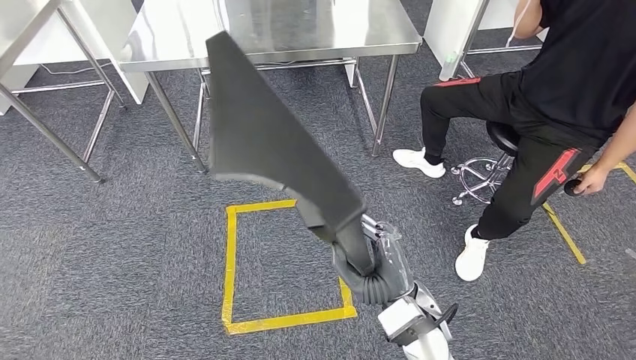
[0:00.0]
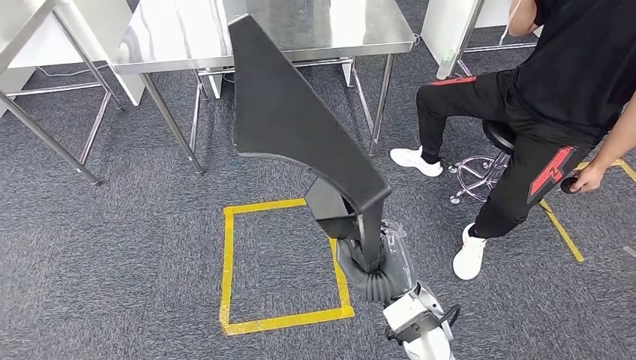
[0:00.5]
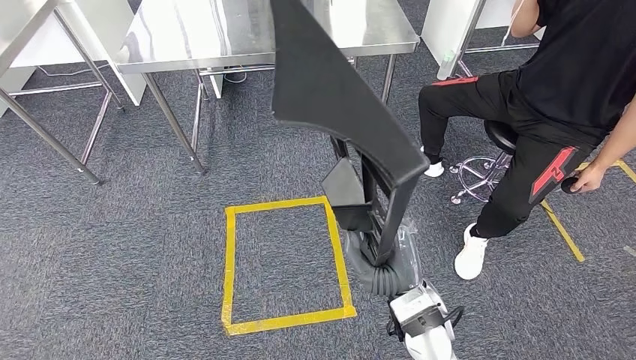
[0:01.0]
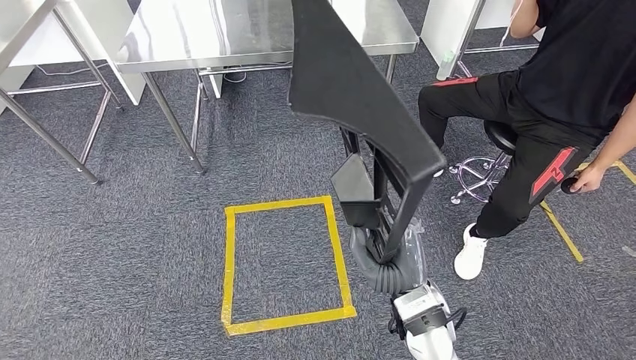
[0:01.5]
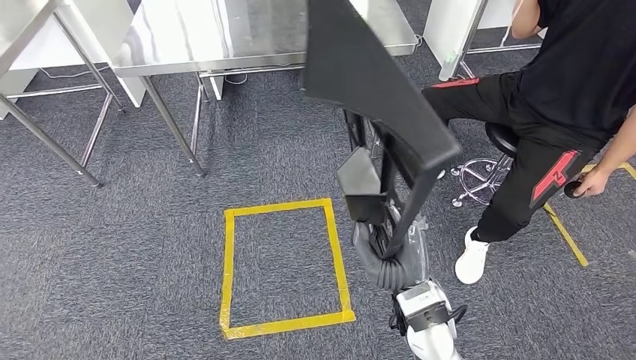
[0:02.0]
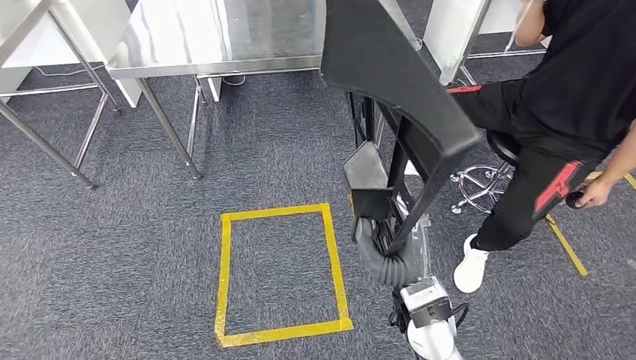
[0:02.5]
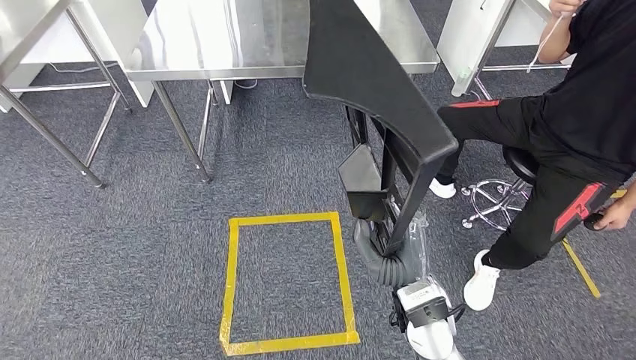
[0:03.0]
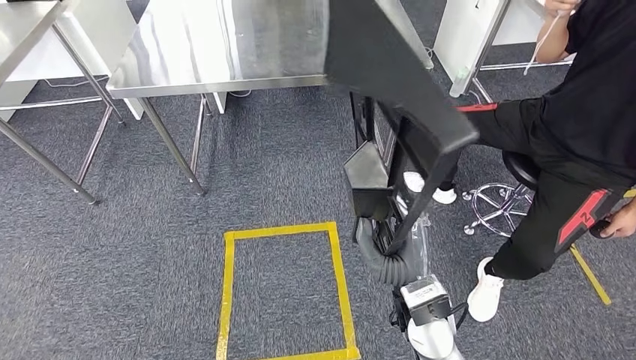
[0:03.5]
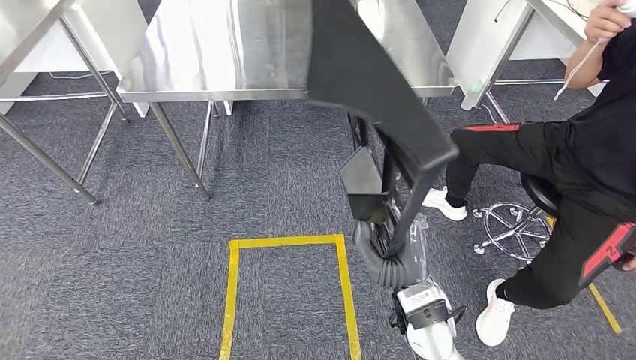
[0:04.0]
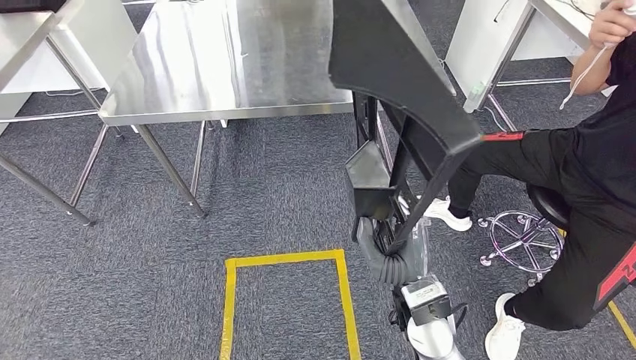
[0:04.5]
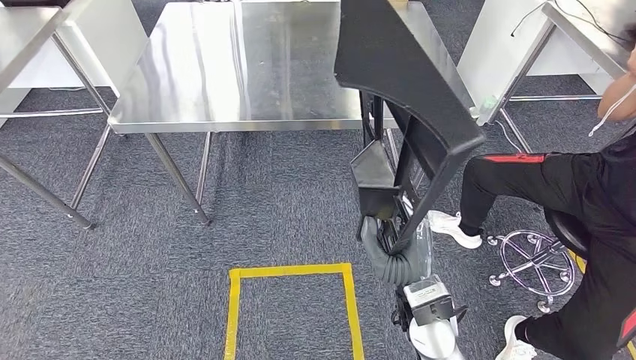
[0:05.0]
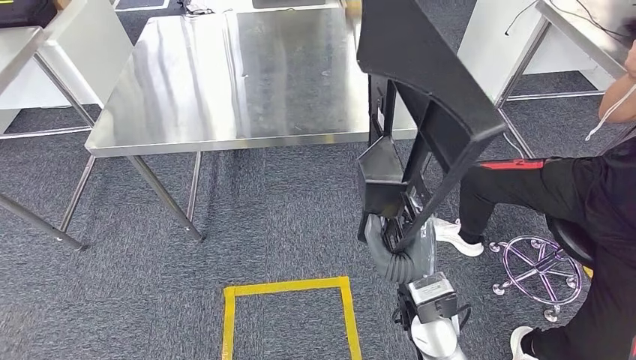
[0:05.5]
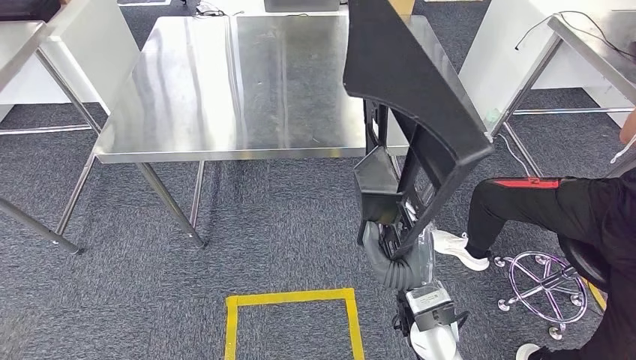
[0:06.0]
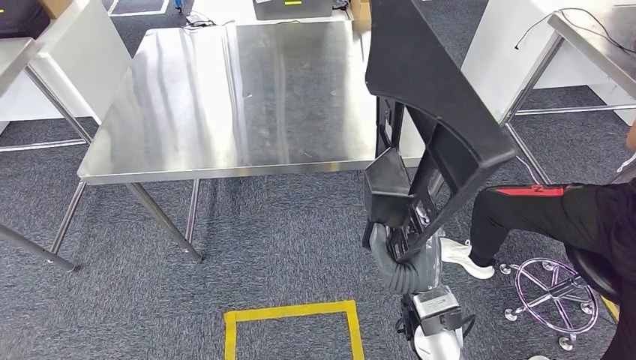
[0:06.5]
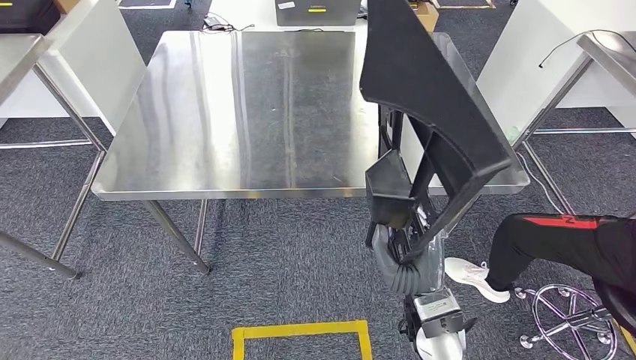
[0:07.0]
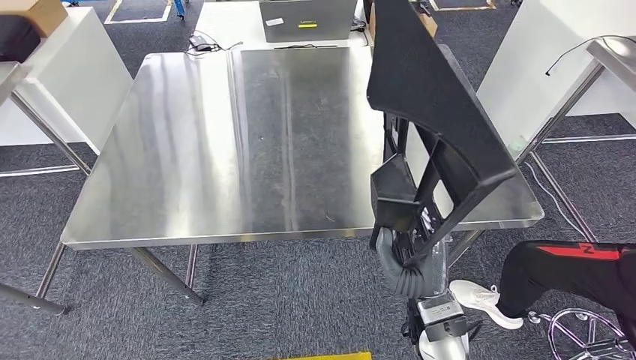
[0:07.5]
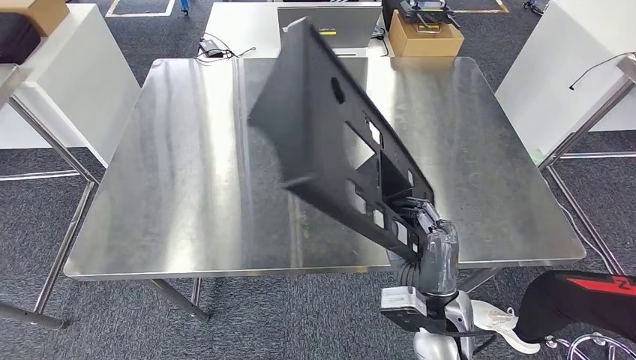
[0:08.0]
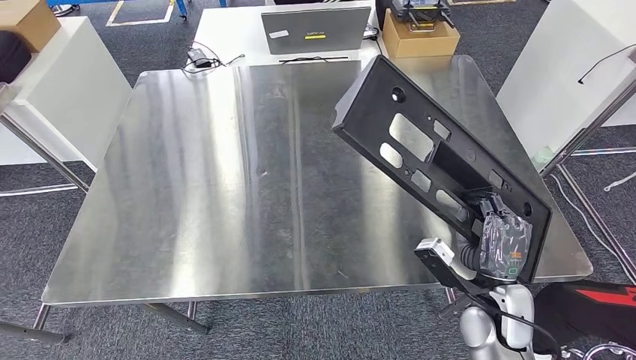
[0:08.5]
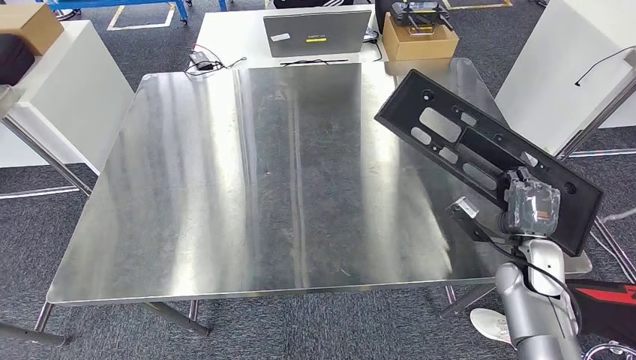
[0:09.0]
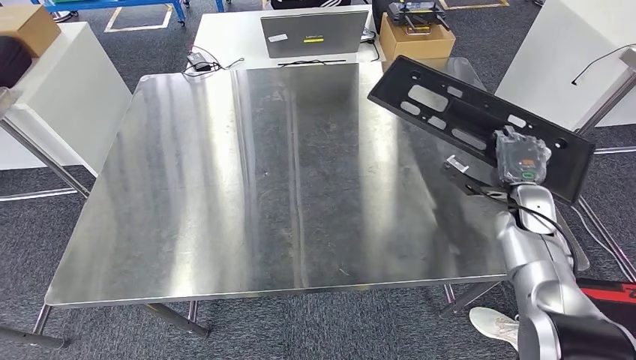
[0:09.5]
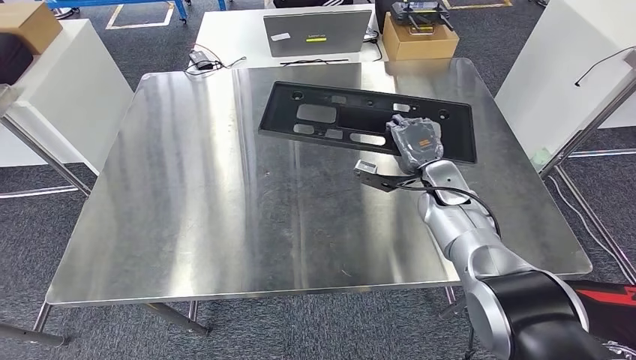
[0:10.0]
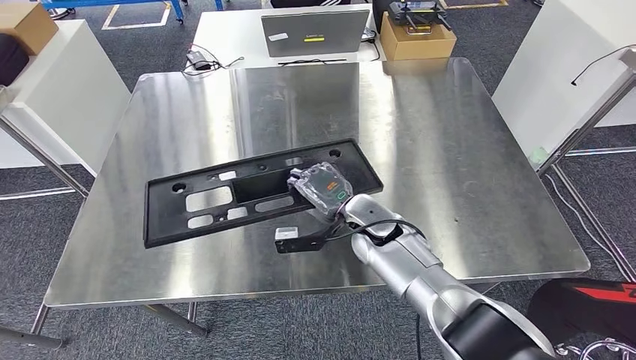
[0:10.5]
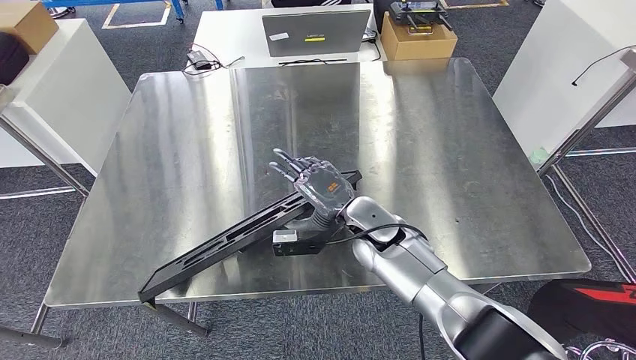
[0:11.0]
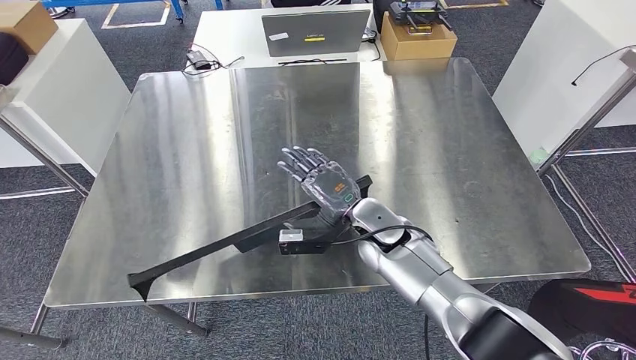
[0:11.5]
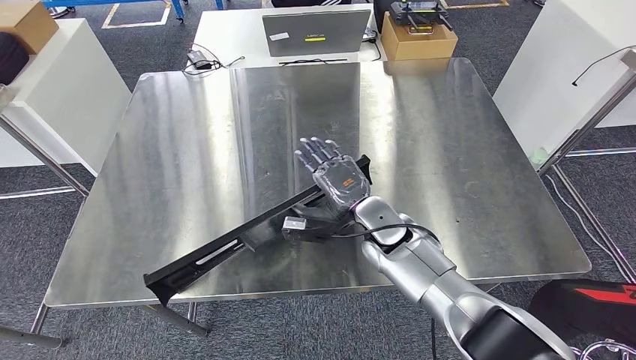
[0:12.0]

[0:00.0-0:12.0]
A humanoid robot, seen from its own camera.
Step, 0:00.0 to 0:05.0: Move the large material to the workbench.

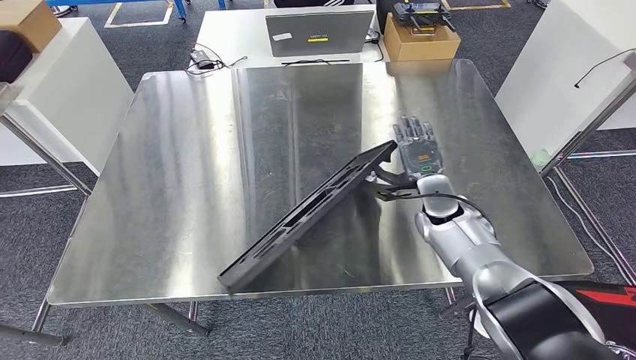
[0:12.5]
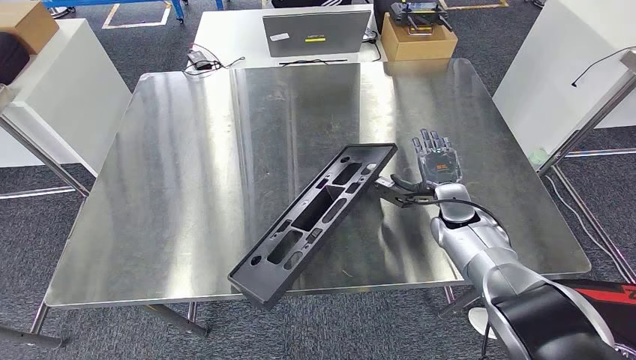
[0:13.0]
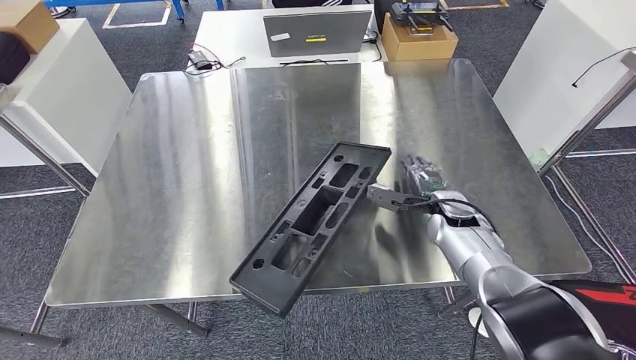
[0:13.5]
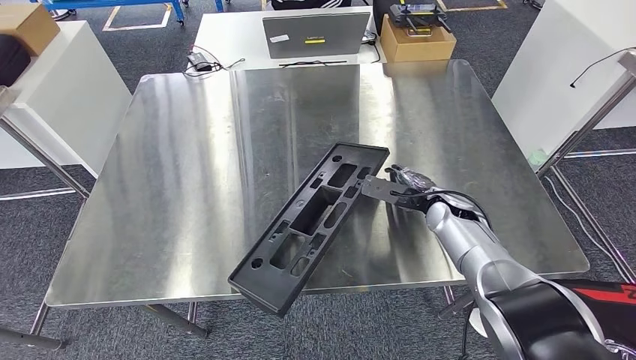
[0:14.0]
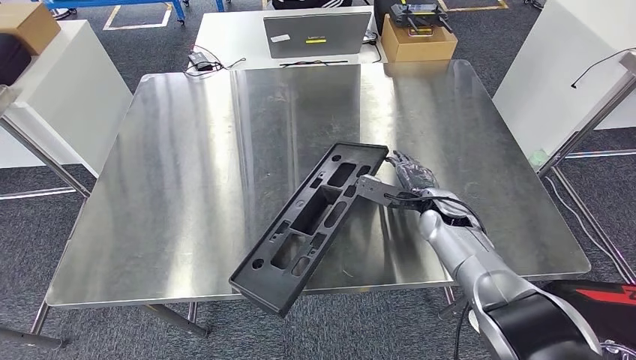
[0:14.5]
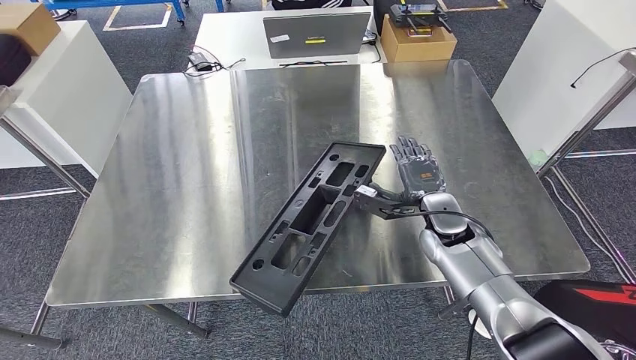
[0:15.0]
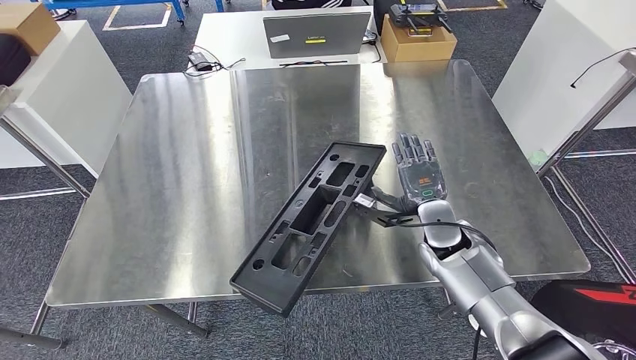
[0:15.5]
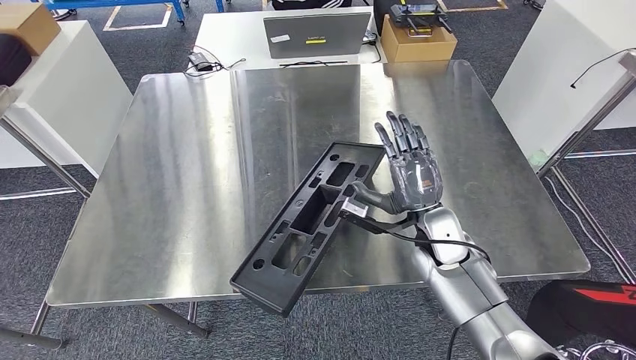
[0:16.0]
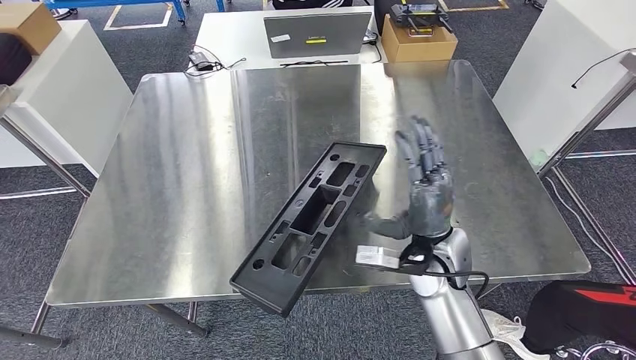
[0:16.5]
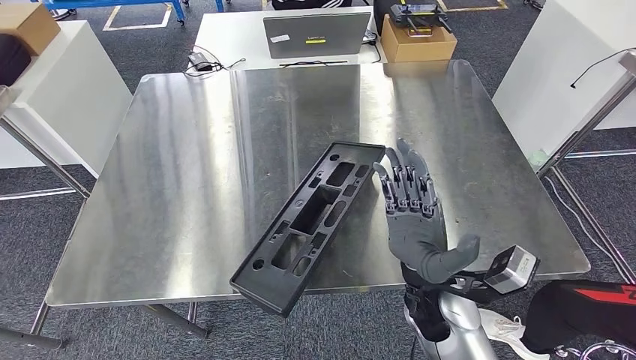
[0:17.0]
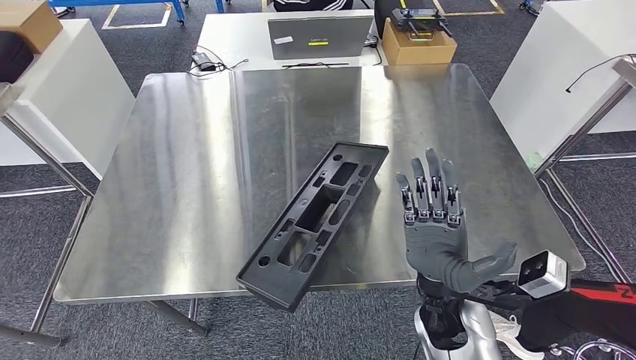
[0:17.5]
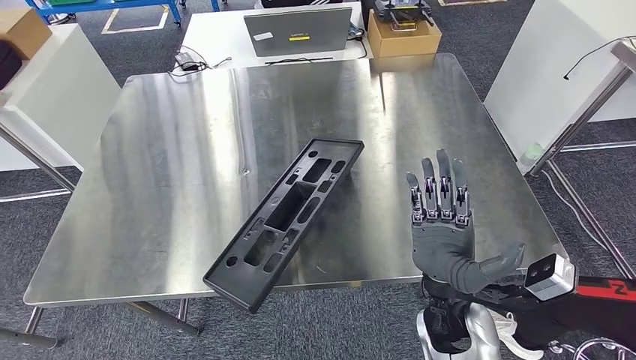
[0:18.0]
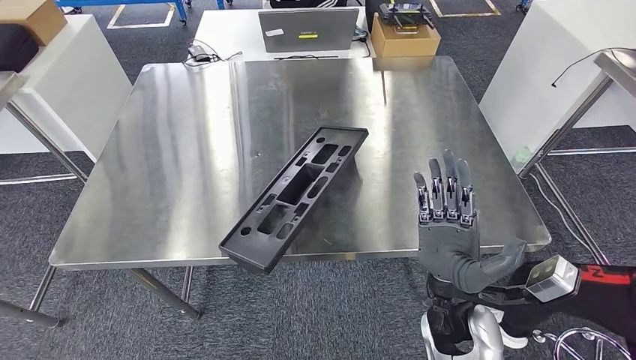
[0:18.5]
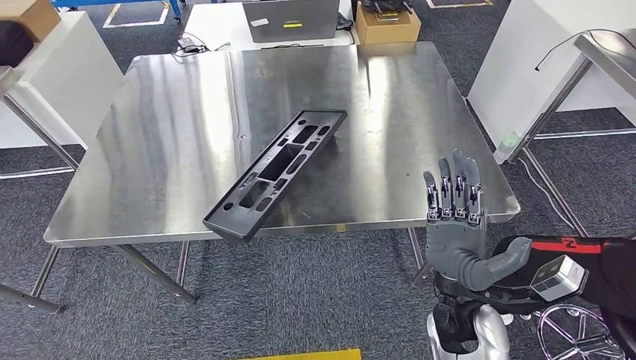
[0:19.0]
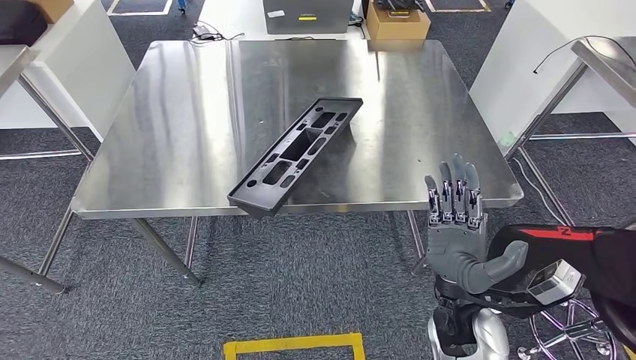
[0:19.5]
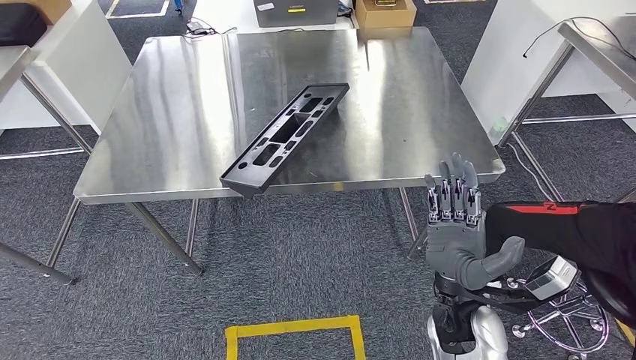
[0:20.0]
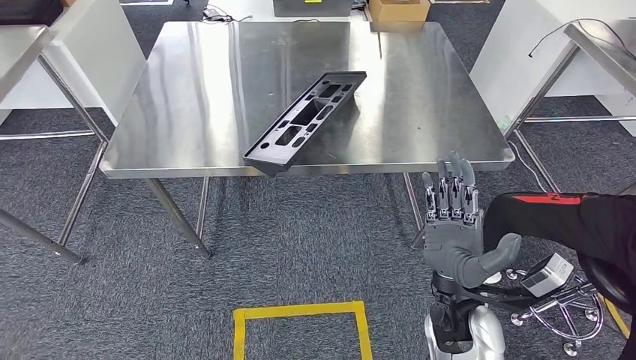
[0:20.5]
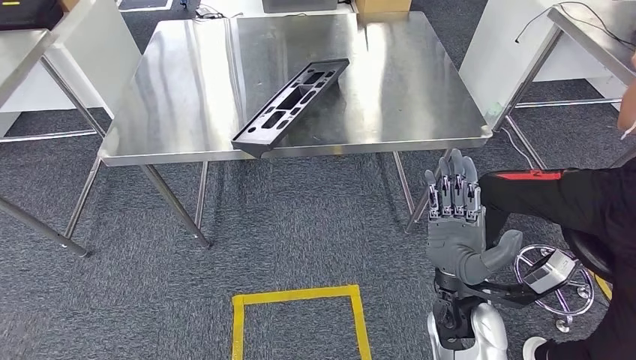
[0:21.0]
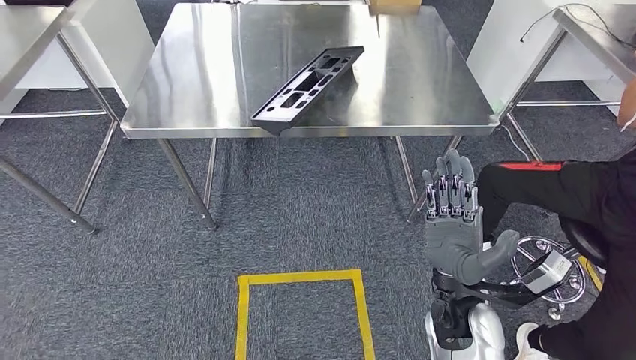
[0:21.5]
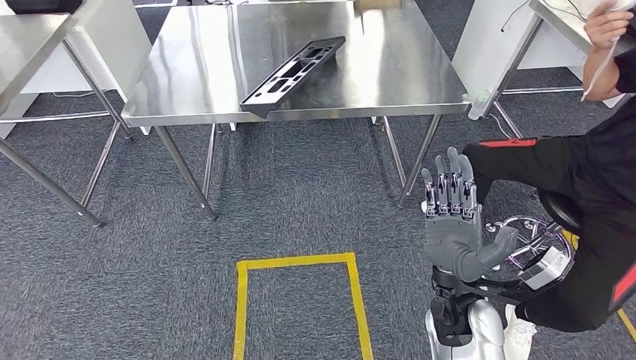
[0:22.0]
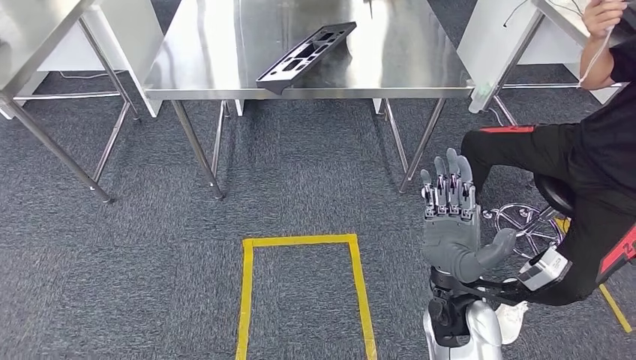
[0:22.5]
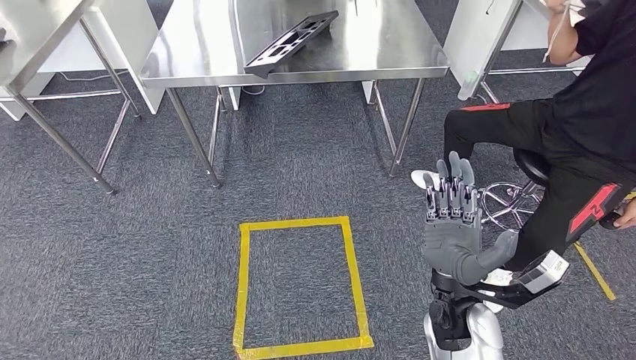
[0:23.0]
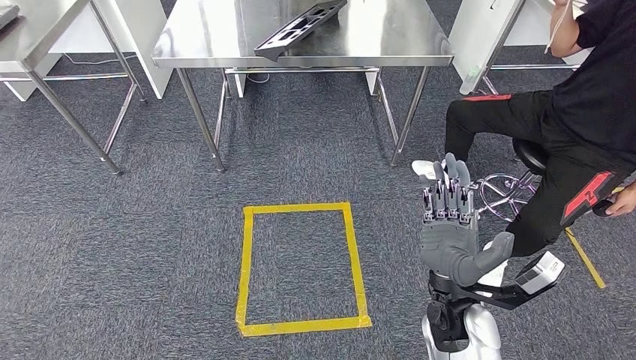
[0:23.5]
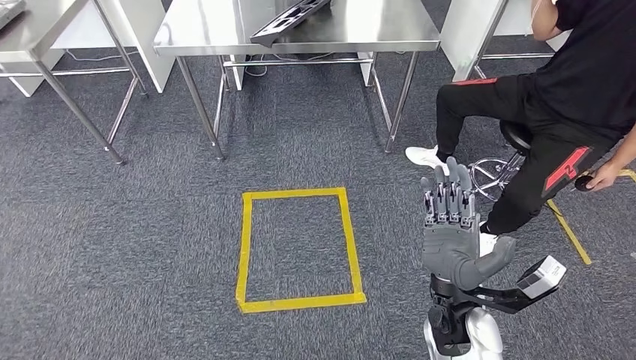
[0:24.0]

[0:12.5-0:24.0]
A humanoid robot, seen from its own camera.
0:14.5 to 0:16.5: The right hand moves backward, to the left and upward, some 15 cm.
